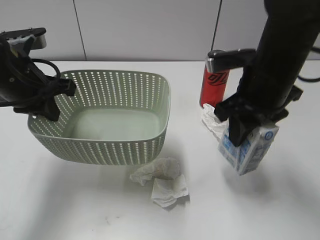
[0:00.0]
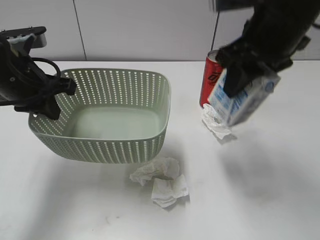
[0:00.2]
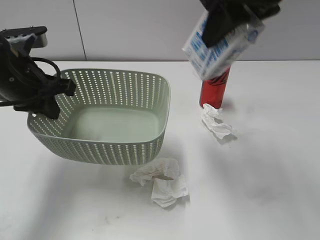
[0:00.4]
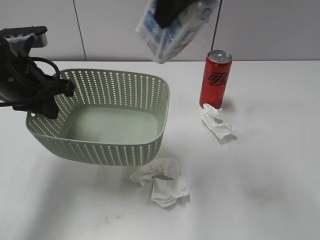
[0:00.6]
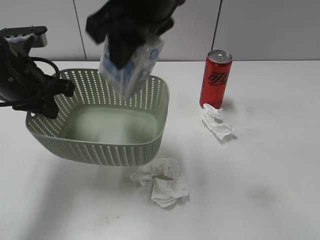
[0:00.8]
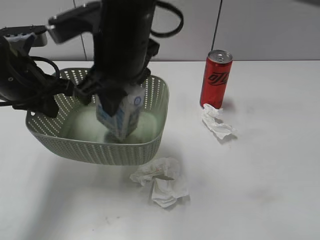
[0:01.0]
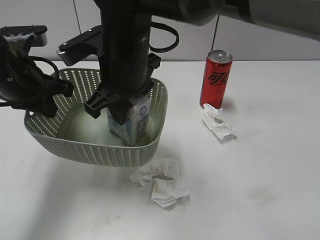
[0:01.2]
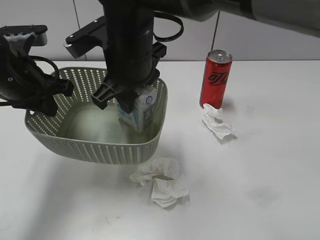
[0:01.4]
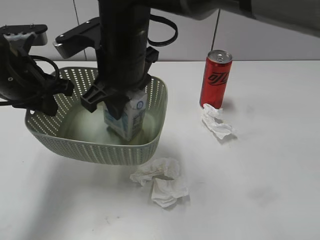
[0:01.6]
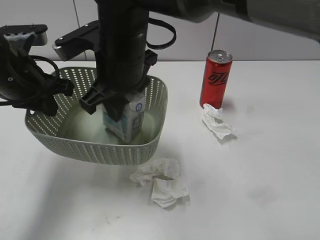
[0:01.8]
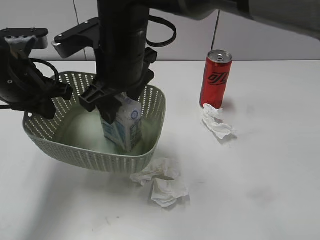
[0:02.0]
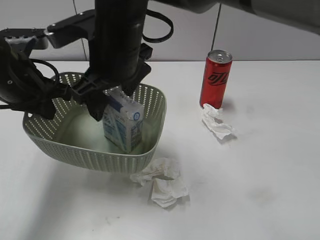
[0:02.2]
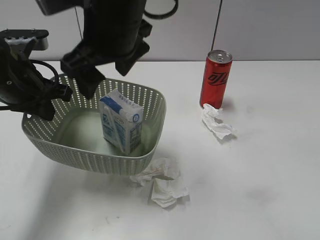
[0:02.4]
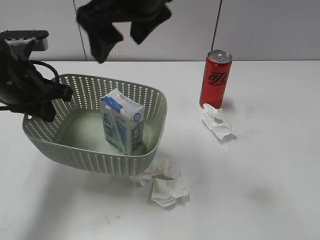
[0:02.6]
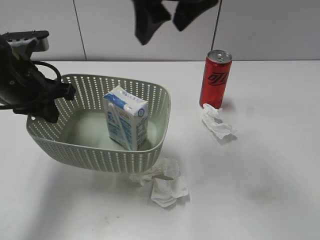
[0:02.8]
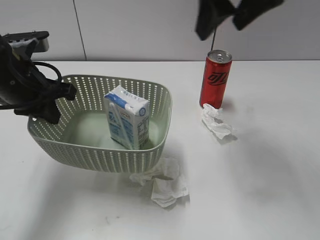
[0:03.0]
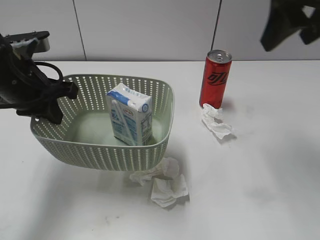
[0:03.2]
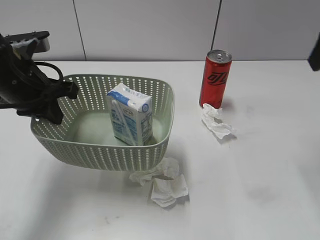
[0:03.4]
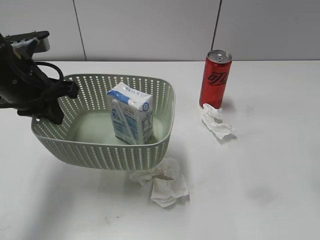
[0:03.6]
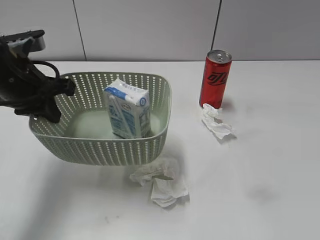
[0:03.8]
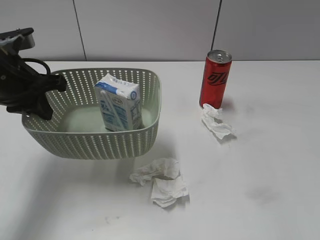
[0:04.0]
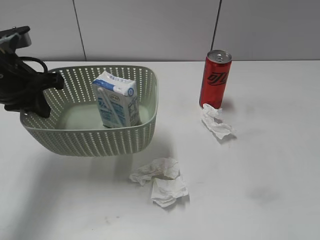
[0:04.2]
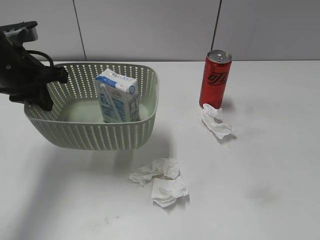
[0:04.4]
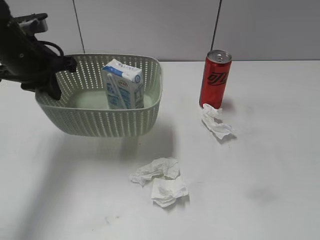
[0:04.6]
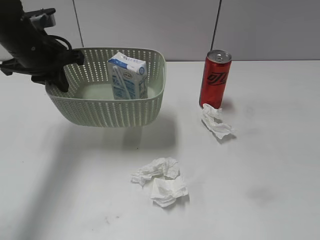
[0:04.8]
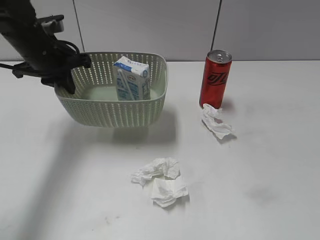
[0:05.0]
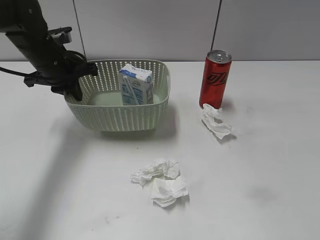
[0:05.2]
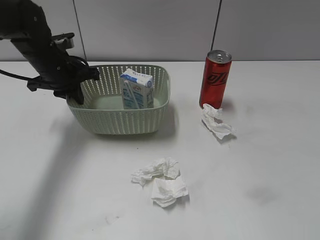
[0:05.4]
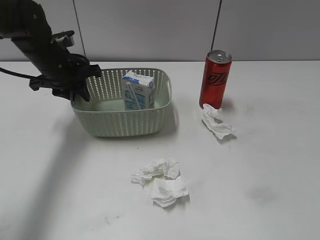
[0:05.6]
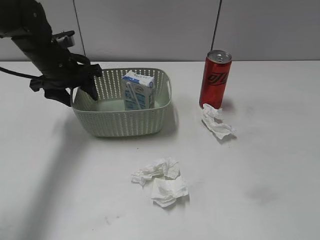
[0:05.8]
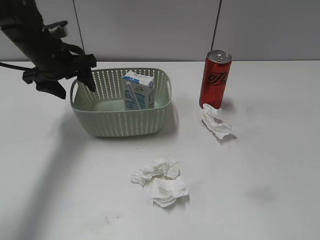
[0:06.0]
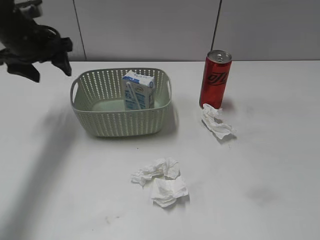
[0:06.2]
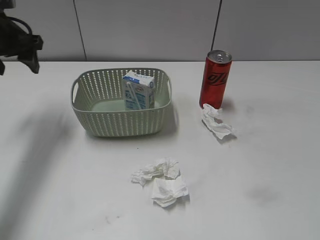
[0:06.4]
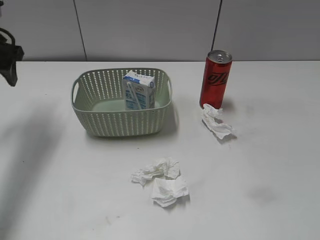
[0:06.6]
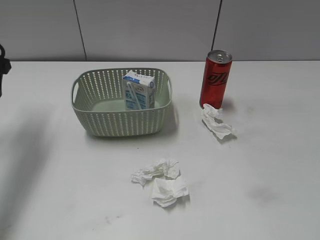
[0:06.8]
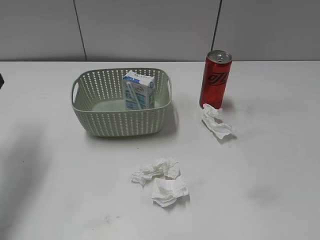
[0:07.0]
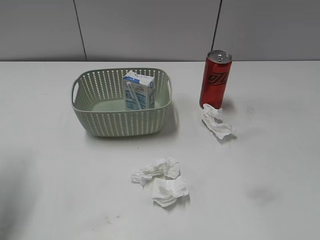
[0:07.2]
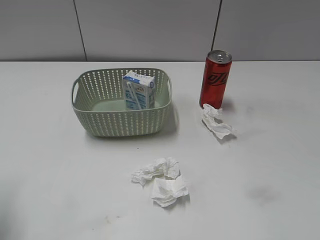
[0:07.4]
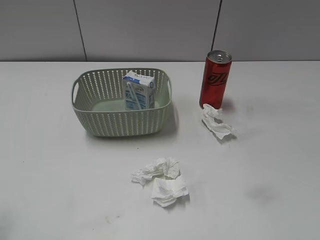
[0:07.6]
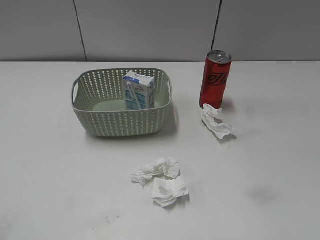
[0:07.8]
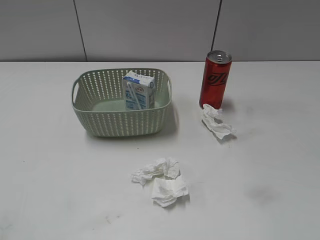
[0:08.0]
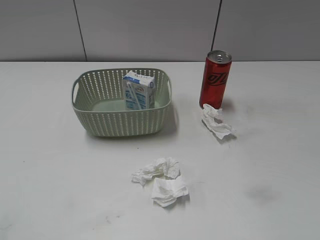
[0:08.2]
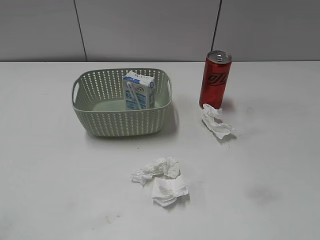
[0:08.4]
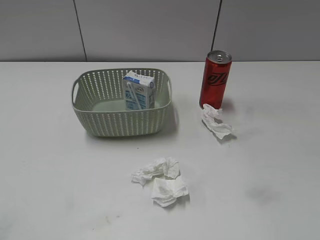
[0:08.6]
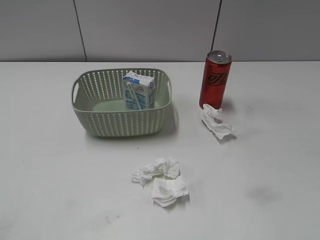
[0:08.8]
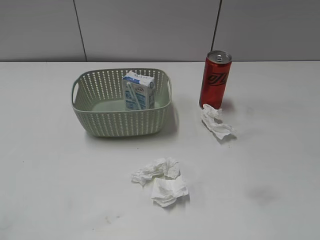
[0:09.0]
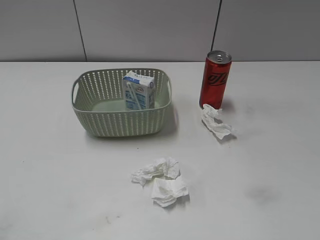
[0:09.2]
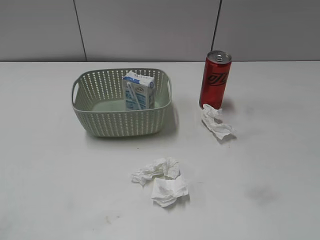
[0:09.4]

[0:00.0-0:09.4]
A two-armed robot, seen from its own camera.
Step, 0:00.0 to 0:02.6: Place the milk in the basket with right gripper.
Step, 0:02.8 to 0:05.8: Place the basket on the table with left gripper.
0:00.0 to 0:01.6: The right gripper heads to the left, covering about 20 cm.
0:01.6 to 0:03.2: The right gripper heads to the right and upward, covering approximately 30 cm, and opens up.
0:03.2 to 0:04.8: The left gripper shifts about 10 cm forward. Meanwhile the right gripper heads backward, covering about 30 cm.
0:04.8 to 0:06.2: The left gripper opens up.
0:06.2 to 0:07.8: The left gripper goes about 35 cm backward.

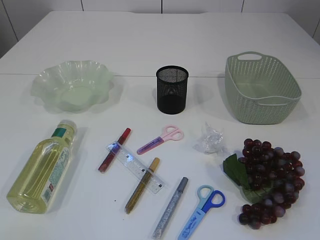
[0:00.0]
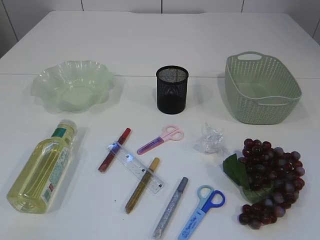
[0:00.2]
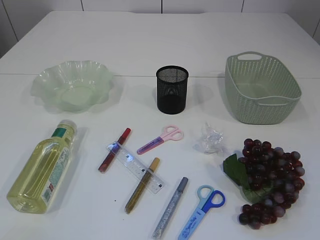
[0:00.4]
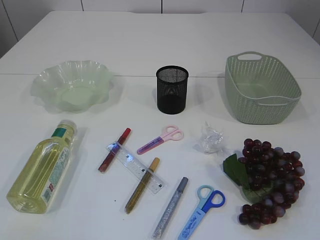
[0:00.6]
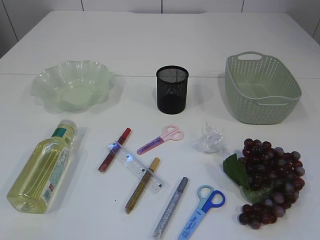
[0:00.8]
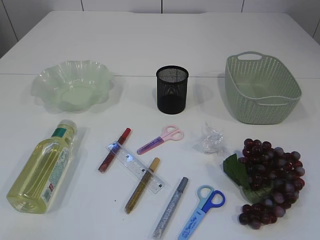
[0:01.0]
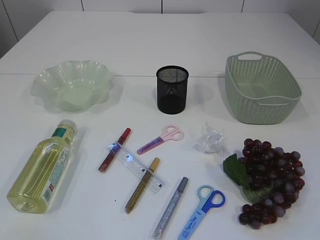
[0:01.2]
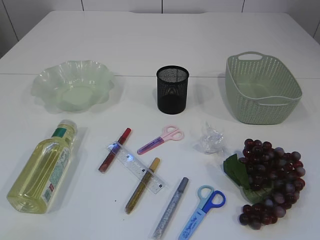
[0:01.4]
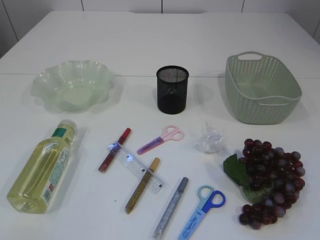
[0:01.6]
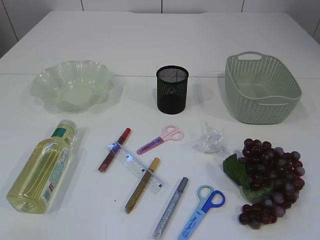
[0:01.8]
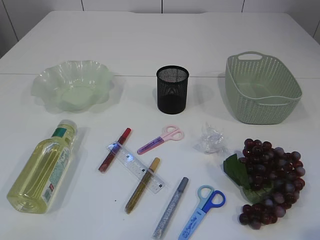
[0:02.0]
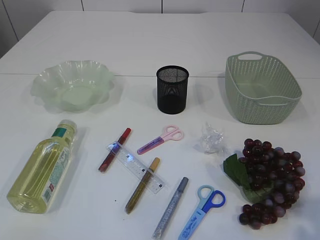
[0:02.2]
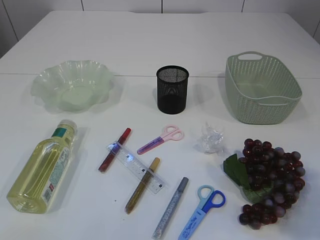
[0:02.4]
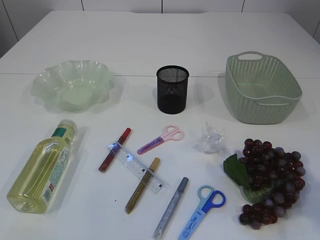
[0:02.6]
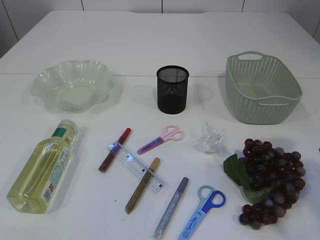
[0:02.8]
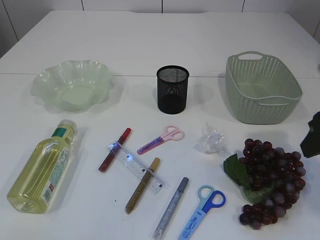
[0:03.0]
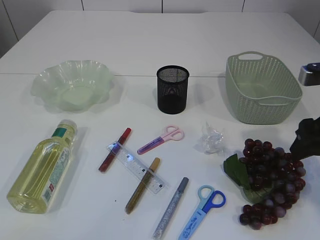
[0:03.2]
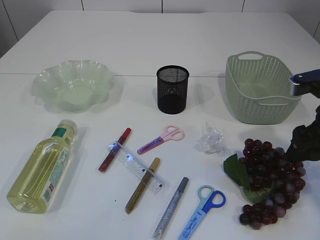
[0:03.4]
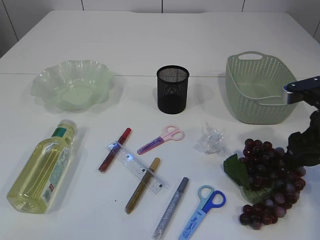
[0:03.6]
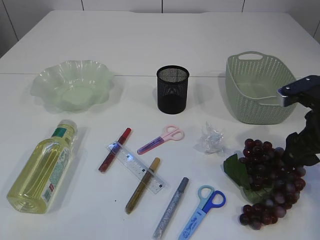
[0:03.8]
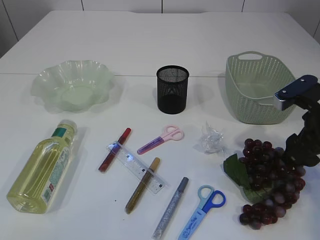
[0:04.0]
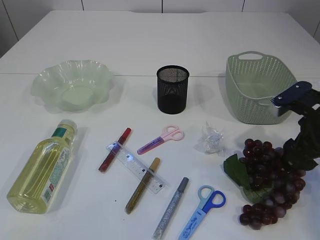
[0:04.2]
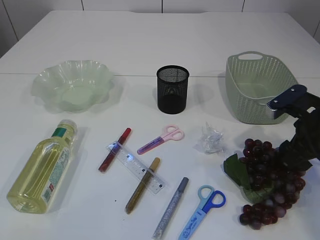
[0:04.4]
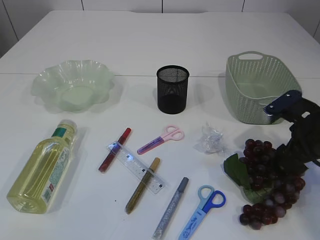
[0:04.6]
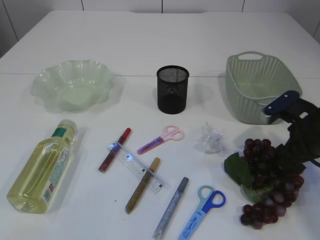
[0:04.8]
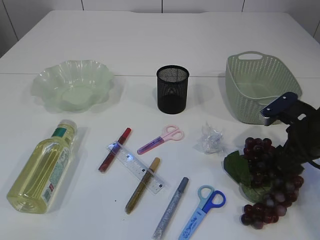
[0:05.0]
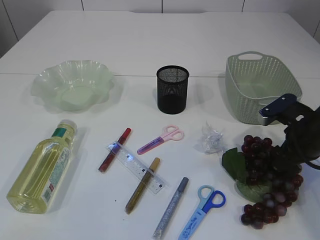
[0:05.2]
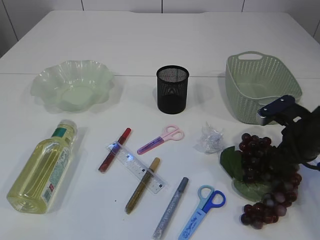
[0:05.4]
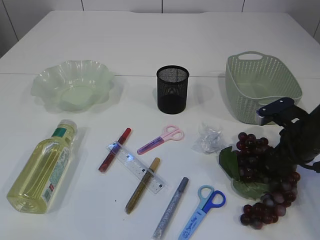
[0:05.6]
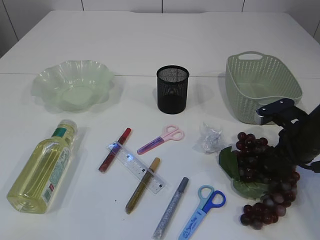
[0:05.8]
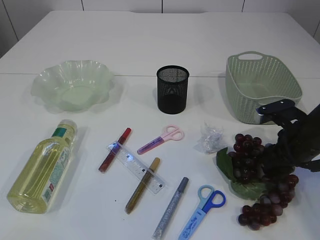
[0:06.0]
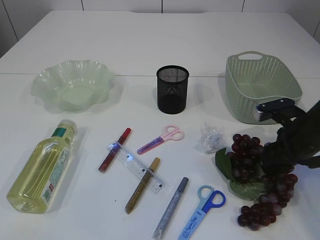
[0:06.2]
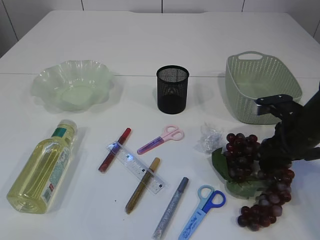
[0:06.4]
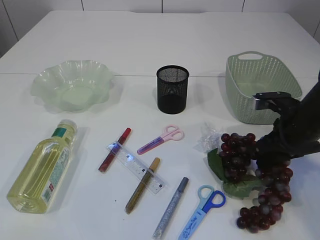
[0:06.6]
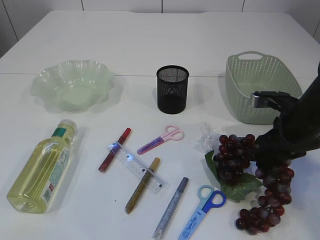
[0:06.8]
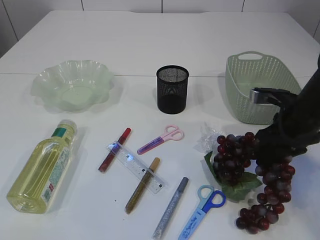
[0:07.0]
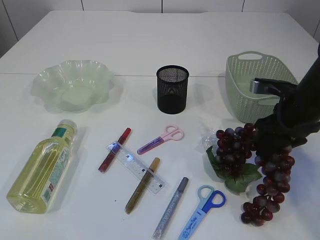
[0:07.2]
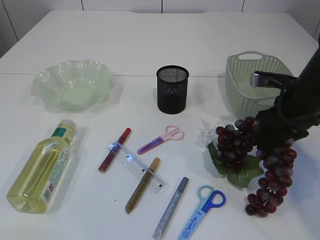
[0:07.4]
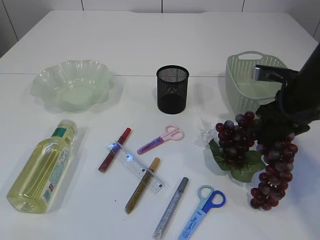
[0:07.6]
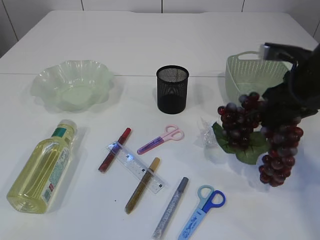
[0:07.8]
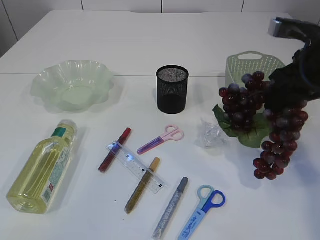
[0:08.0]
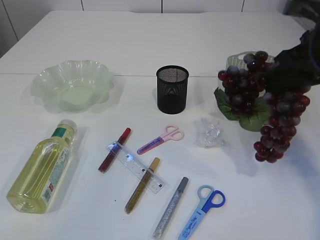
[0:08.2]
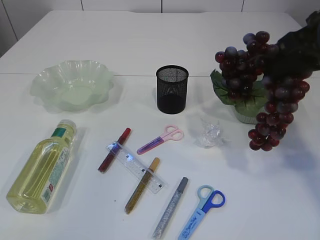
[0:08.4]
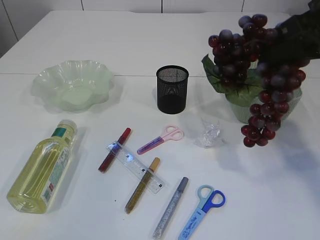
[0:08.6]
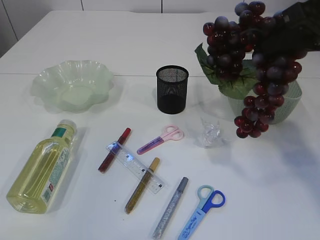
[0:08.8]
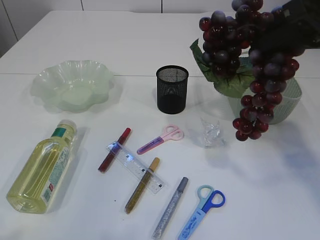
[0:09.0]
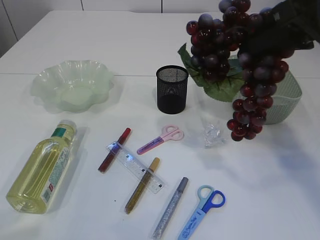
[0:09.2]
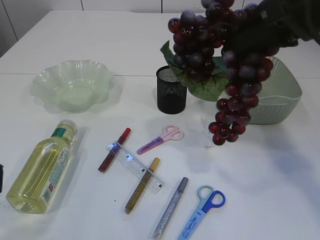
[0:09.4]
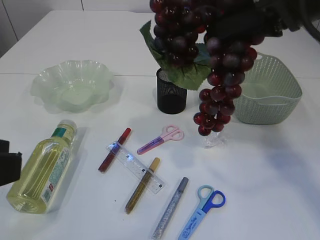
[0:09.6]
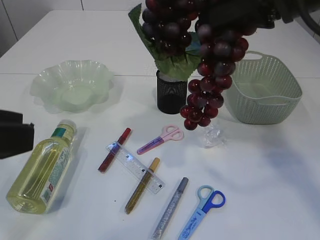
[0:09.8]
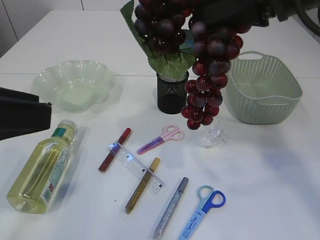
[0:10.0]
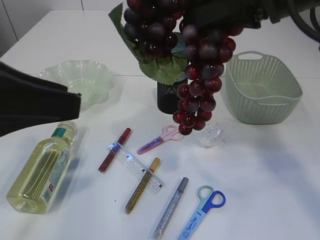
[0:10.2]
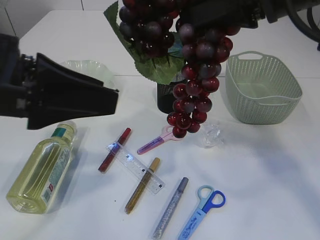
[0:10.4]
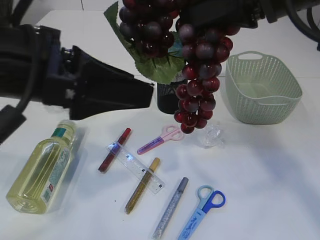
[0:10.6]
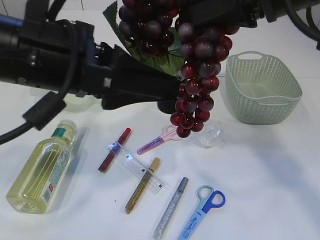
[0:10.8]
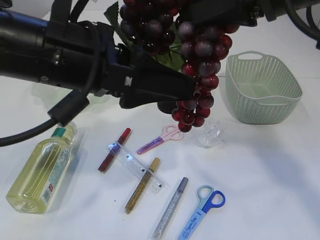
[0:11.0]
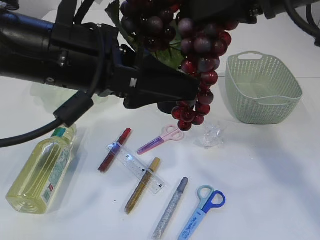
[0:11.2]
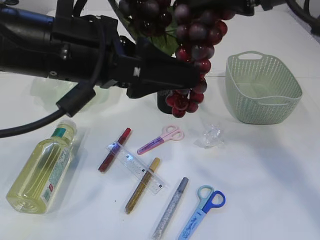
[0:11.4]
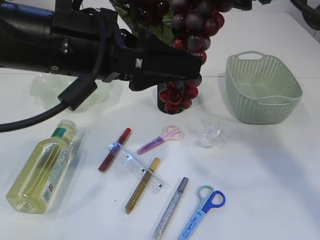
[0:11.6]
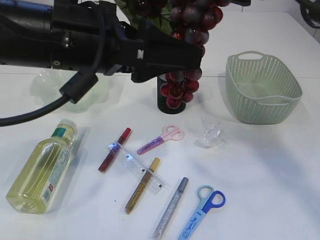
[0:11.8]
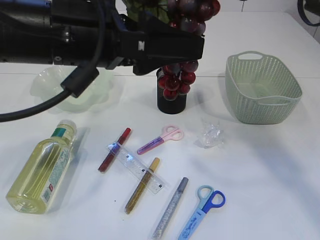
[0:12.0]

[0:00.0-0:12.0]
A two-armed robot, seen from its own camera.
Step, 0:00.0 to 0:08.2: Pick up the grapes.
0:01.6 to 0:03.0: The right gripper goes roughly 25 cm forward.
0:03.0 to 0:04.4: The right gripper is displaced downward and forward by about 10 cm.
0:04.4 to 0:06.0: The right gripper closes its fingers.
0:06.0 to 0:07.6: The right gripper shifts approximately 10 cm upward.
0:07.6 to 0:09.0: The right gripper goes approximately 15 cm upward. Meanwhile the left gripper heads forward, covering about 5 cm.
0:09.0 to 0:10.4: The right gripper goes roughly 5 cm to the left; the left gripper heads forward and to the right, covering roughly 20 cm.
0:10.4 to 0:12.0: The left gripper heads to the right, covering about 10 cm.

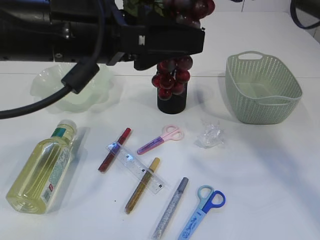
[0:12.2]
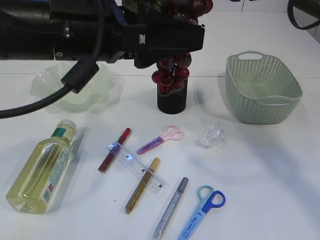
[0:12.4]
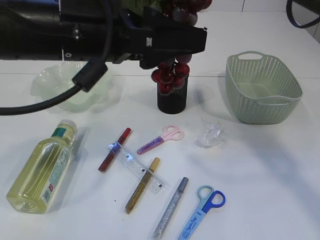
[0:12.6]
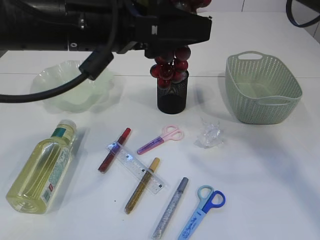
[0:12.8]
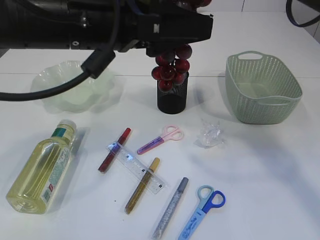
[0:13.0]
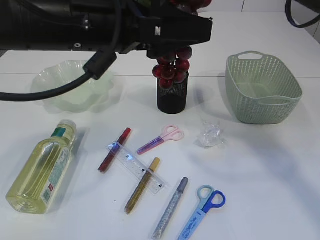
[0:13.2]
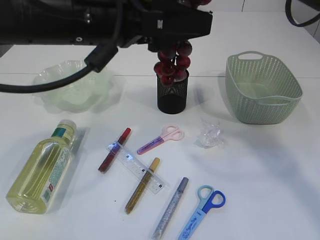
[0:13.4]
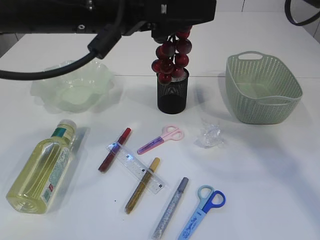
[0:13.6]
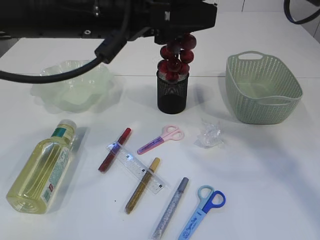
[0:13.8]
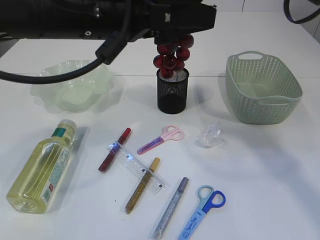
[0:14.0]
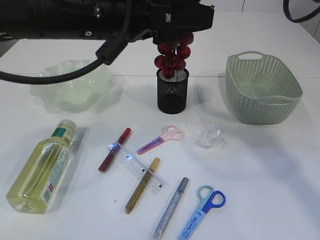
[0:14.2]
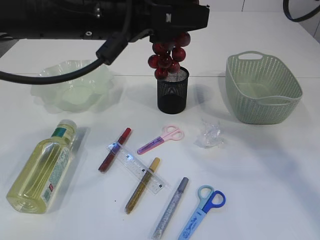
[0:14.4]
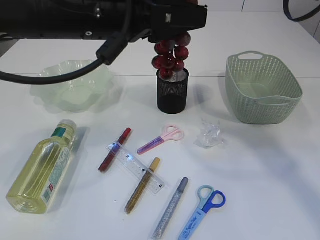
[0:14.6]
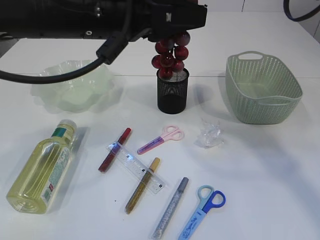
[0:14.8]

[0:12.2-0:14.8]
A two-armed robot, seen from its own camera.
0:12.2 to 0:13.4: There are only small adjustments of the grippers.
0:13.4 to 0:14.8: The left gripper closes up.
